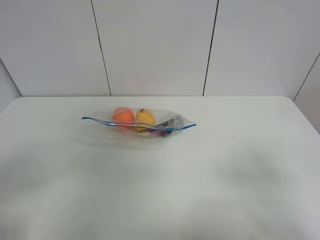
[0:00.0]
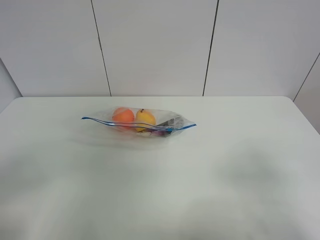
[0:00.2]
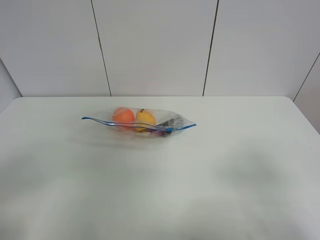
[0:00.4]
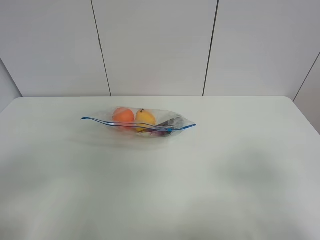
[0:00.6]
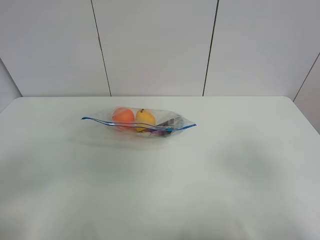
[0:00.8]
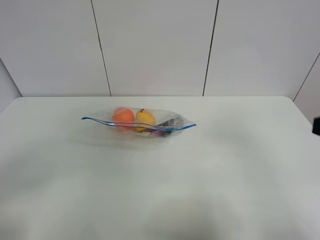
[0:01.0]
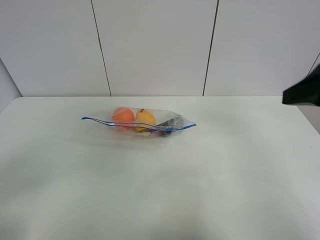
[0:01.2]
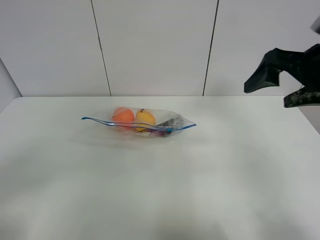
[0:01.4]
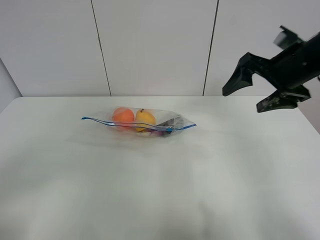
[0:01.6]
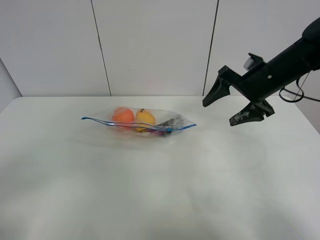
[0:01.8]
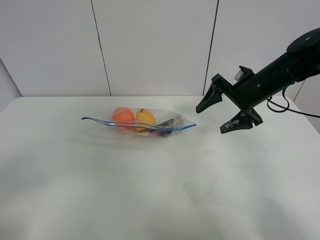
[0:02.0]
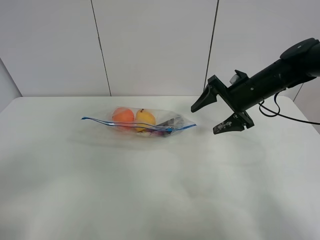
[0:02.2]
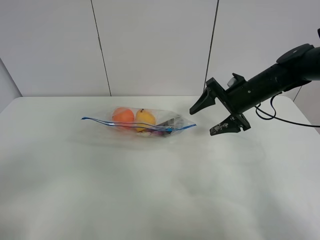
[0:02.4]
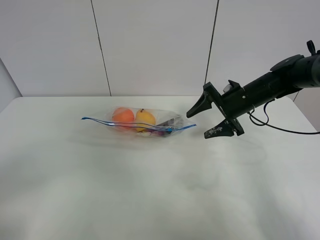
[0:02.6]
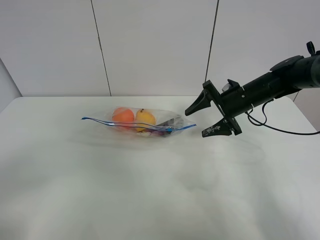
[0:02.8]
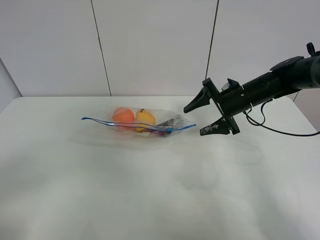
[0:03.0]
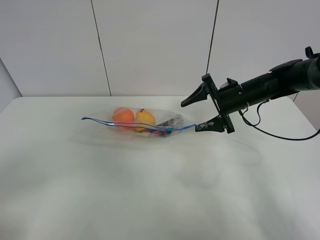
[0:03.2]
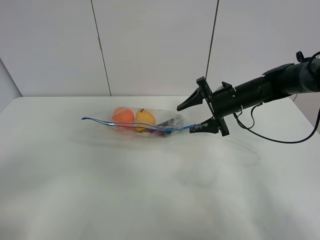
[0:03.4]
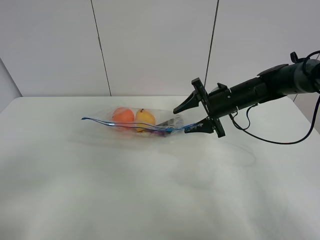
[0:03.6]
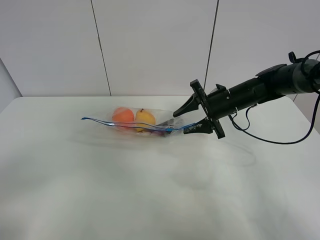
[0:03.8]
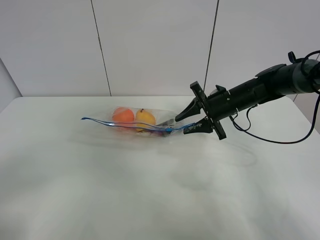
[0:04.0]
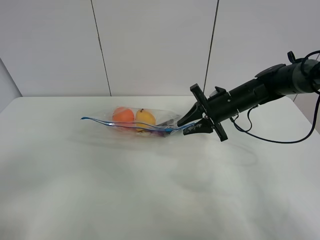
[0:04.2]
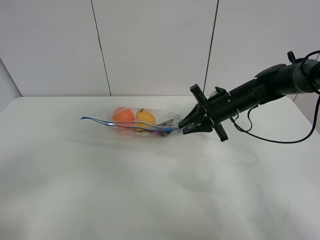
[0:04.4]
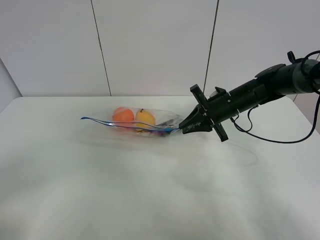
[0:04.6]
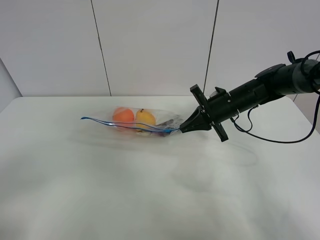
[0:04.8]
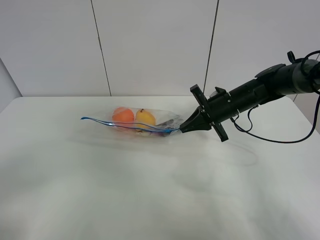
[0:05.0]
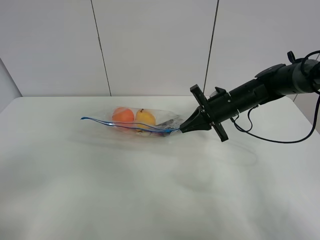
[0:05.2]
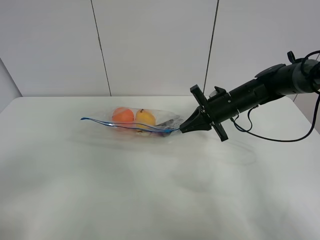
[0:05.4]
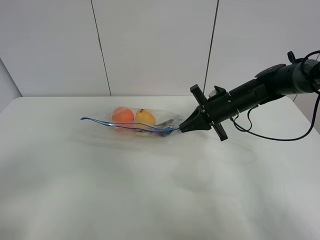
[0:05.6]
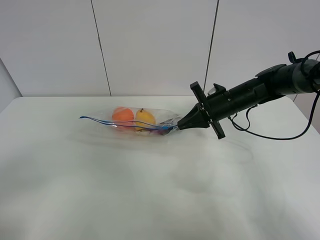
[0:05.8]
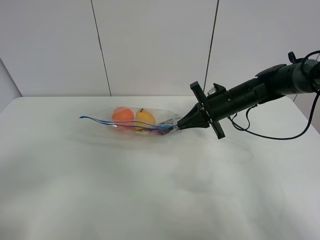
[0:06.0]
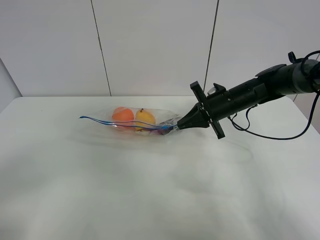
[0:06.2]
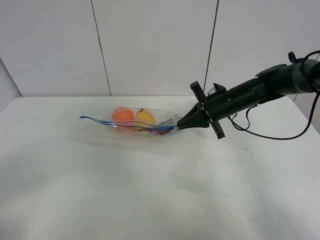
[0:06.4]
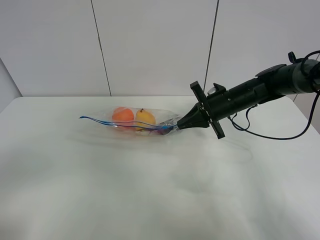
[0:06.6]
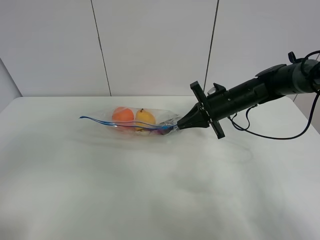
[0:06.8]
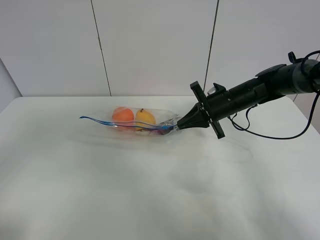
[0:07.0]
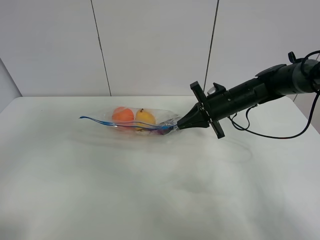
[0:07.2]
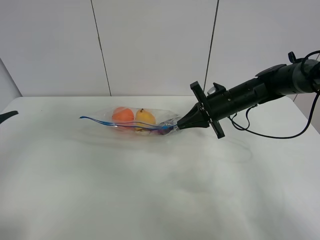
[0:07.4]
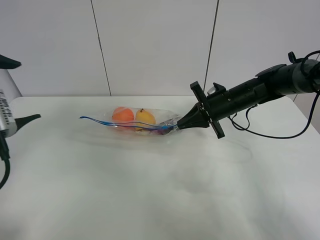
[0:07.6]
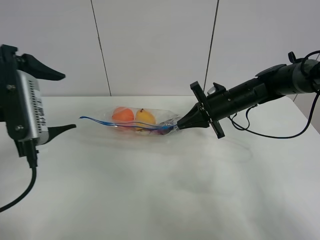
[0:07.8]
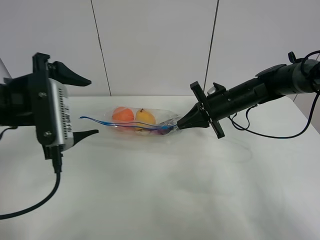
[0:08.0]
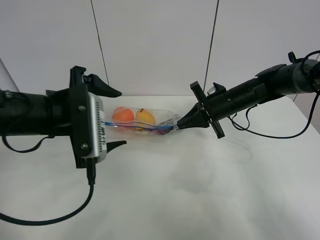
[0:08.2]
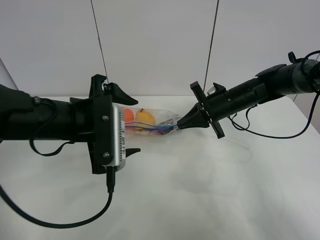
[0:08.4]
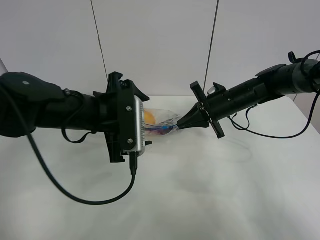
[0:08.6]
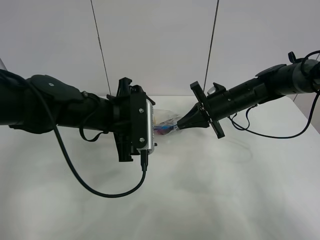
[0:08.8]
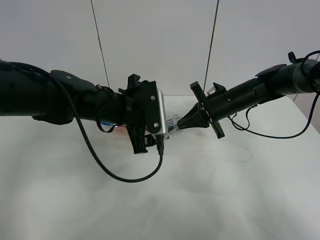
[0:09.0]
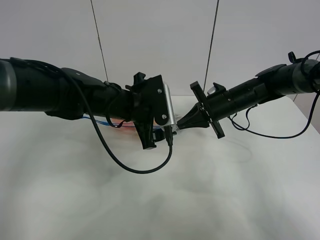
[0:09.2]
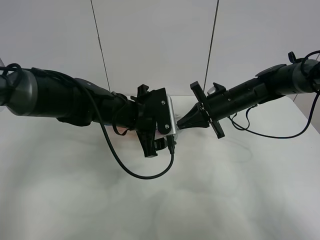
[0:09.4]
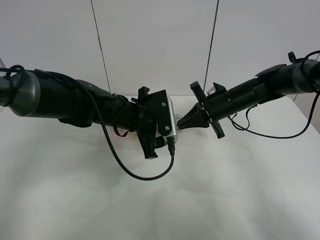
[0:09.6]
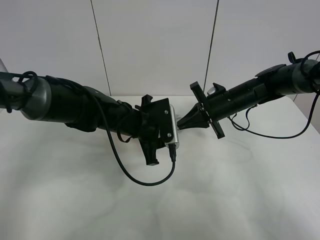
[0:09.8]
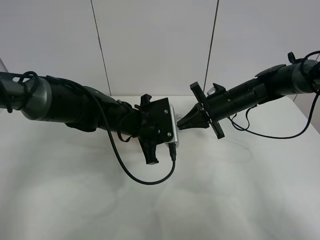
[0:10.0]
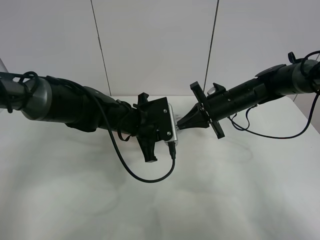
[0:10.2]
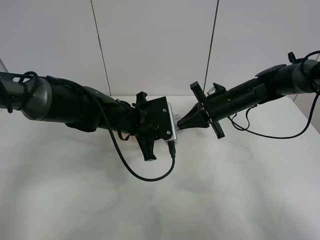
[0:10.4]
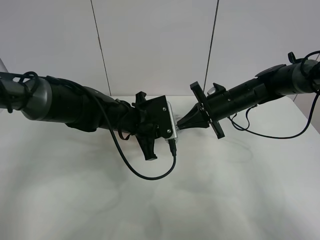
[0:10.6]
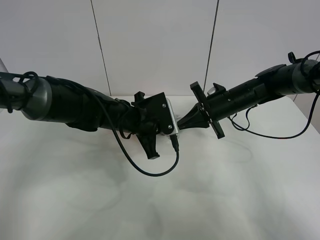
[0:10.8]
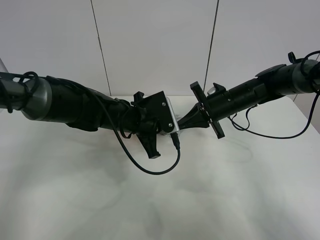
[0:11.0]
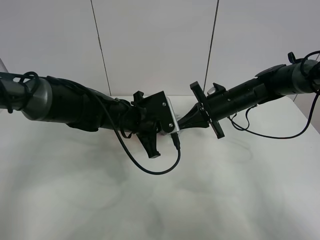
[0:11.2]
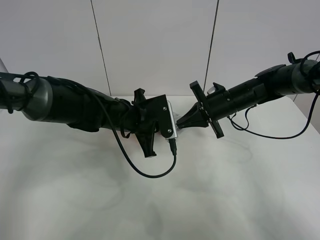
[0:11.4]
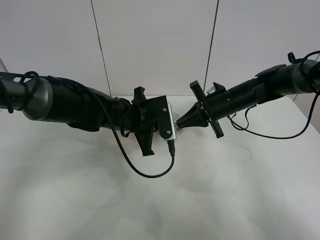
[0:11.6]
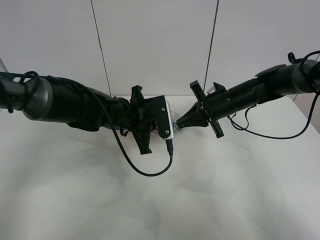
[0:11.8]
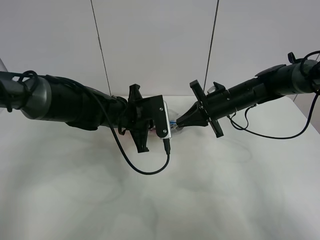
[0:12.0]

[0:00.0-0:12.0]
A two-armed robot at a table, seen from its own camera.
Step, 0:00.0 to 0:04.8: Grasp the fruit bag with right gripper.
Step, 0:05.0 to 0:06.2: Lift the fruit bag with your right gripper.
0:00.0 to 0:01.6: The right gripper shifts about 30 cm forward.
0:01.6 to 0:03.0: The right gripper shifts about 15 cm downward and forward.
0:03.0 to 0:04.4: The right gripper closes its fingers.
0:04.4 to 0:06.0: There are only small adjustments of the grippers.
0:06.0 to 0:07.6: The left gripper is displaced forward by approximately 20 cm.
0:07.6 to 0:09.0: The left gripper is displaced to the right, forward and downward by approximately 25 cm.
0:09.0 to 0:10.4: The left gripper heads downward, covering some 5 cm, and closes its fingers.
0:10.4 to 0:12.0: There are only small adjustments of the grippers.

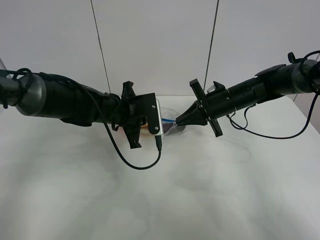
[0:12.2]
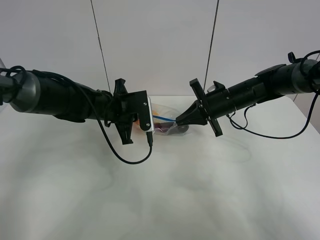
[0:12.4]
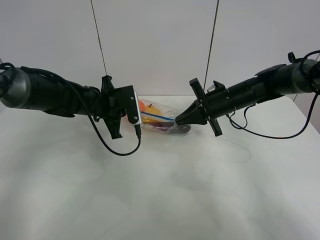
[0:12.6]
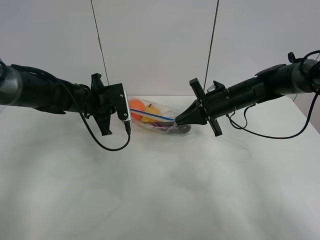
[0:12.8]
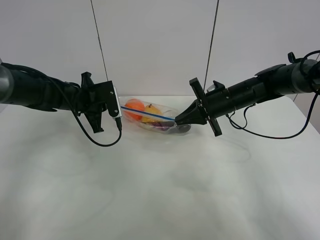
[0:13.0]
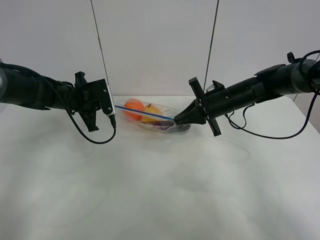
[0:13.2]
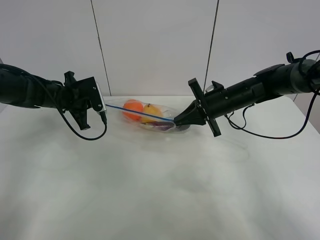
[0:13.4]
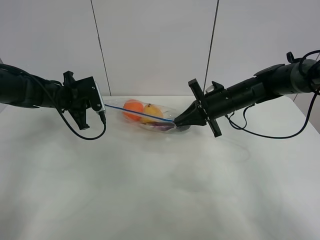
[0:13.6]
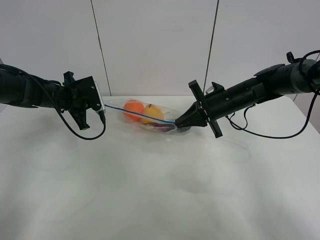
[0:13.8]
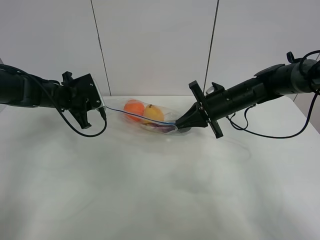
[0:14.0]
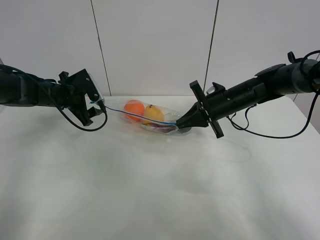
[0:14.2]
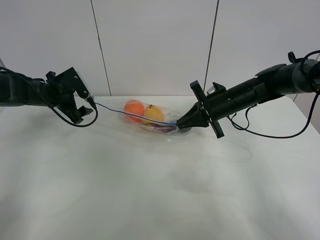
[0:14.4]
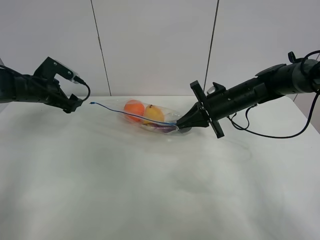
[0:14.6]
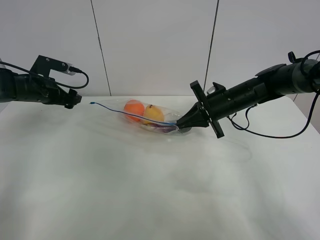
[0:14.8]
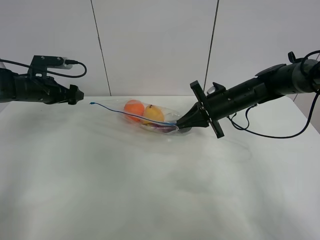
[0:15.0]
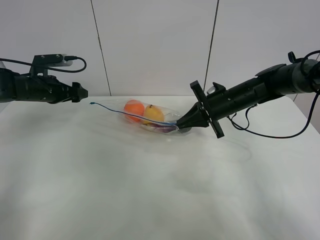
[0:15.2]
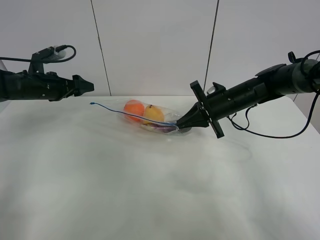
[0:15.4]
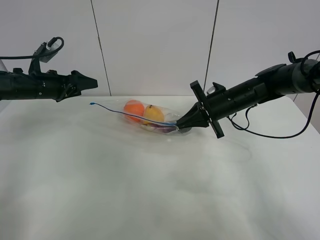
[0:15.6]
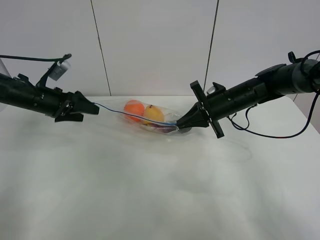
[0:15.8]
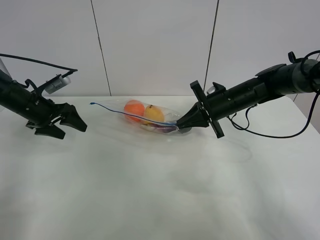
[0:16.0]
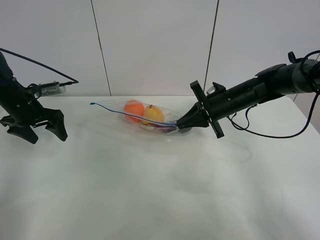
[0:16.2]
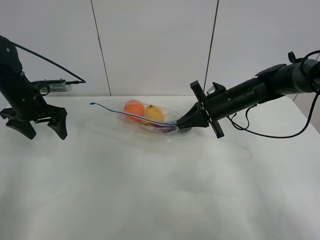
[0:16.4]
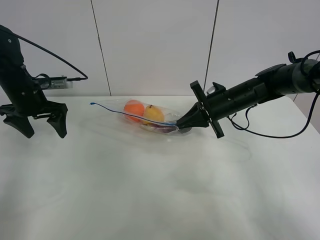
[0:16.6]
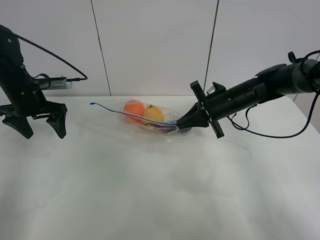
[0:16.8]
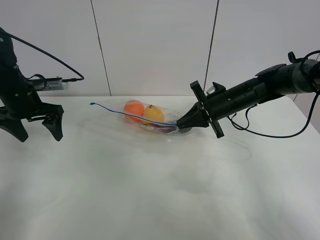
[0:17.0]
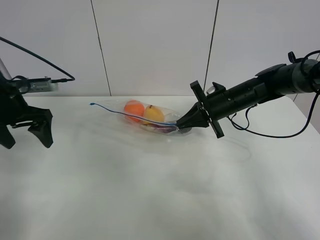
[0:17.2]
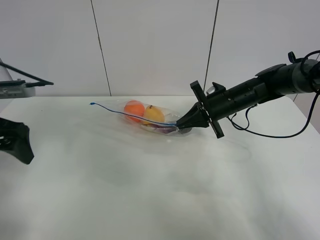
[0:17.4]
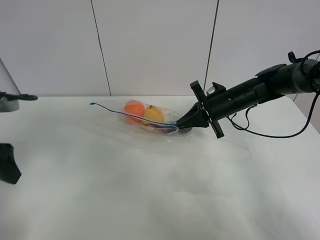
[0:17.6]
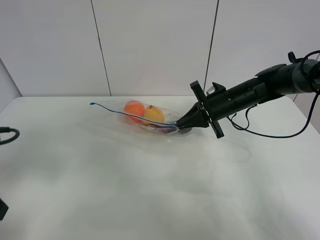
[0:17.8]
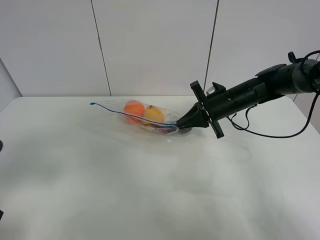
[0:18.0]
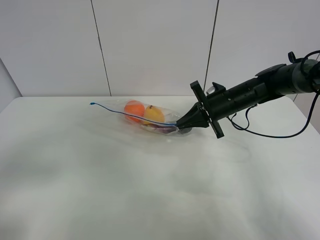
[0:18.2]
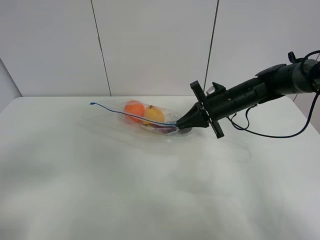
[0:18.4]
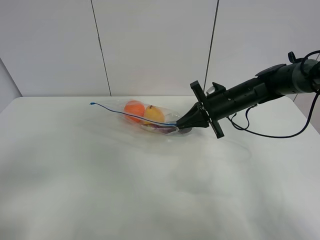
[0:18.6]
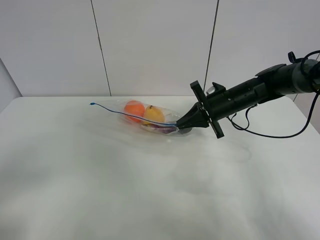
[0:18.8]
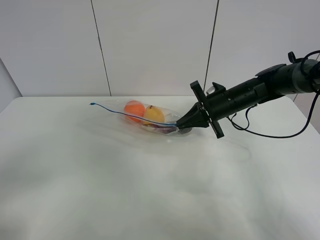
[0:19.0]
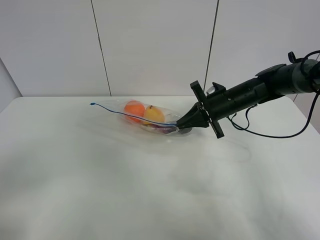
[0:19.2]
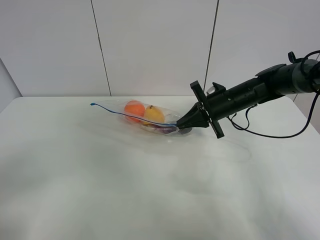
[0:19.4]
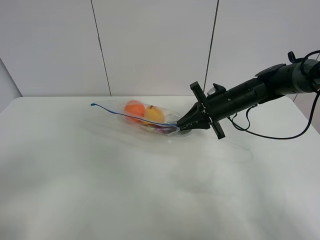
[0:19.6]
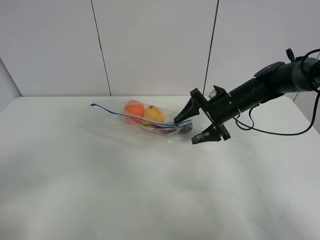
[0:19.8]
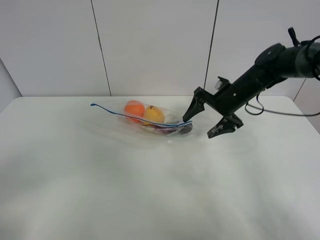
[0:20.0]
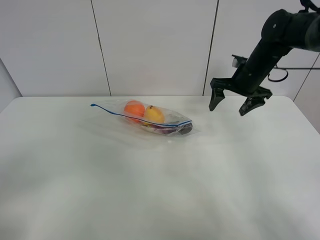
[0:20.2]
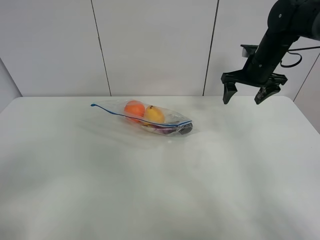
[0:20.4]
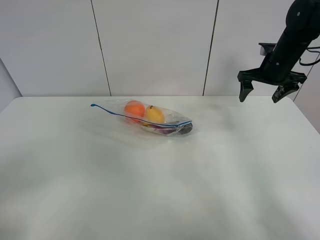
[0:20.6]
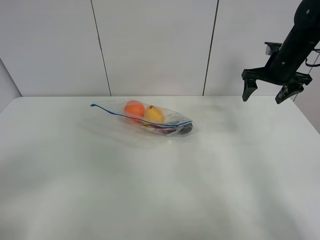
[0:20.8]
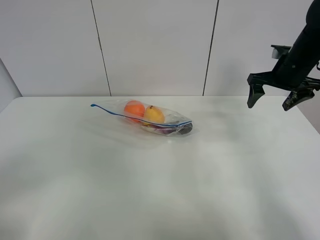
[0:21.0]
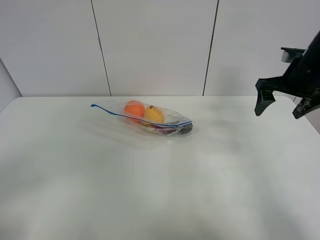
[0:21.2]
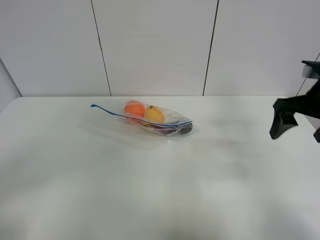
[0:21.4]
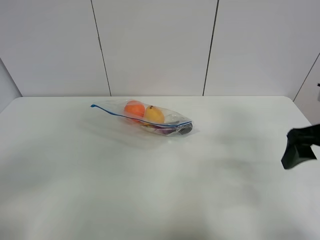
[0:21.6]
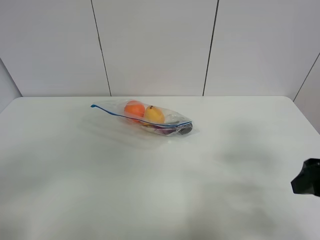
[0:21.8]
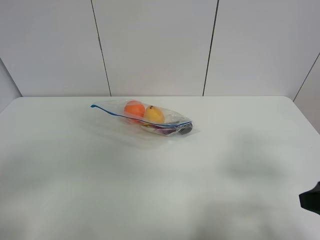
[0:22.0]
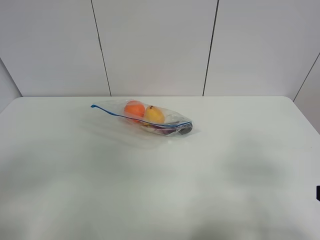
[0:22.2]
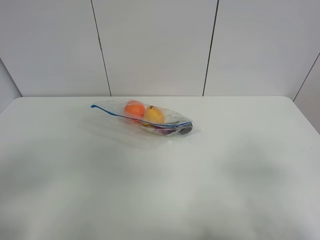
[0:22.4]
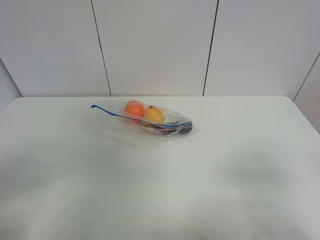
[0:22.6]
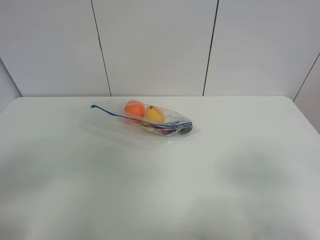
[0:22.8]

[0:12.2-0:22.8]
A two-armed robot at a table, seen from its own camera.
Step, 0:12.2 to 0:14.2: Pull the fruit bag with left gripper.
0:12.2 to 0:13.8: The left gripper moves to the left, about 15 cm.
0:13.8 to 0:15.2: The left gripper heads to the left, covering approximately 5 cm, and opens up.
0:15.2 to 0:16.8: The left gripper moves roughly 5 cm.
0:16.8 to 0:18.2: The left gripper is displaced backward by about 30 cm.
0:18.2 to 0:19.8: The right gripper opens its fingers; the left gripper moves backward, some 5 cm.
0:19.8 to 0:21.2: The right gripper is displaced upward, to the right and backward by approximately 15 cm.
0:21.2 to 0:22.8: The right gripper shifts some 35 cm backward.
